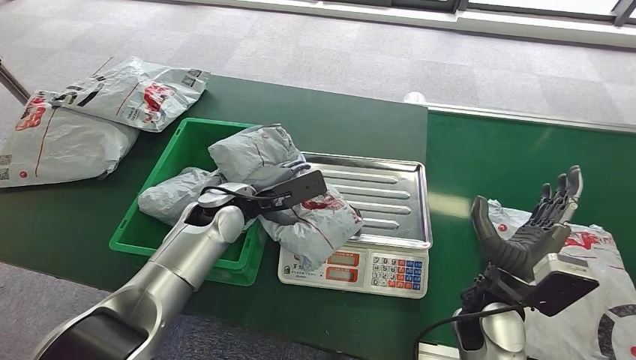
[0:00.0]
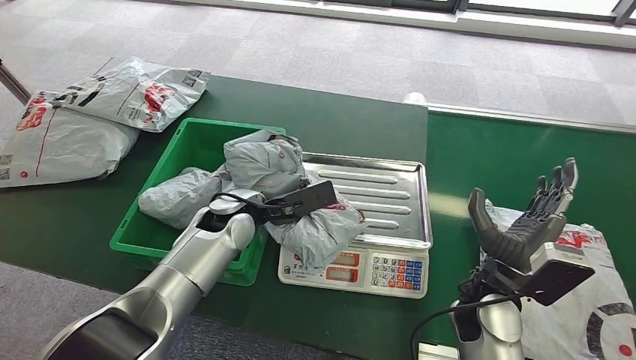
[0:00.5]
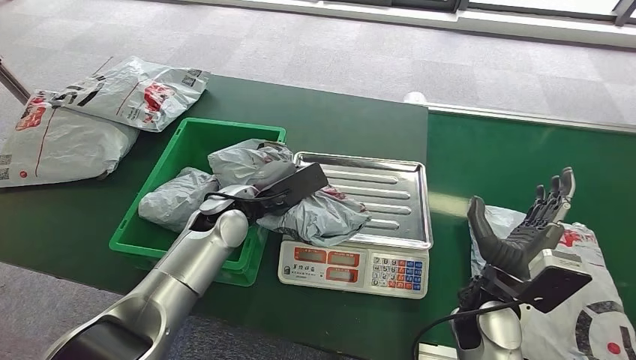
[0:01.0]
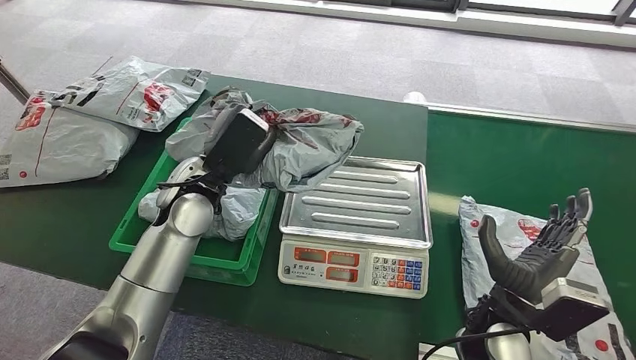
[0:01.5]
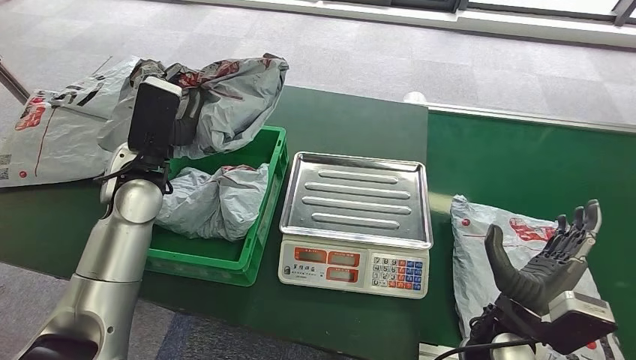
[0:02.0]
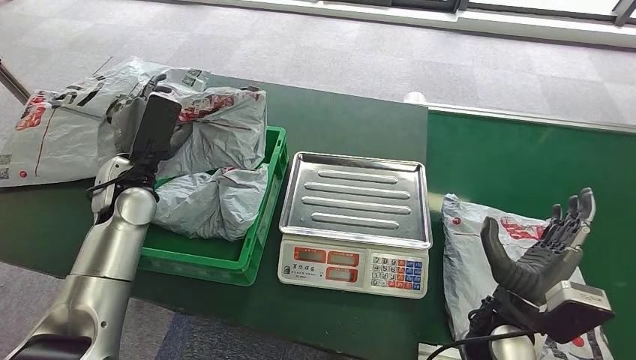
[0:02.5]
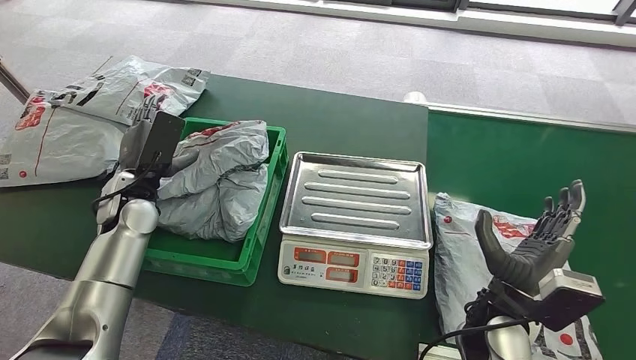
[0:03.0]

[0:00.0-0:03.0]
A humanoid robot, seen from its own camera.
Step, 0:02.0 to 0:03.0: Place the package into the parcel locker.

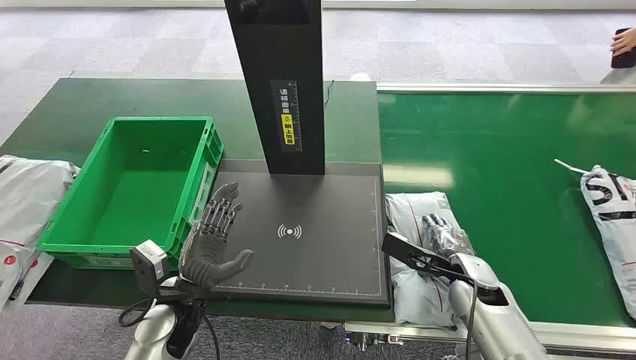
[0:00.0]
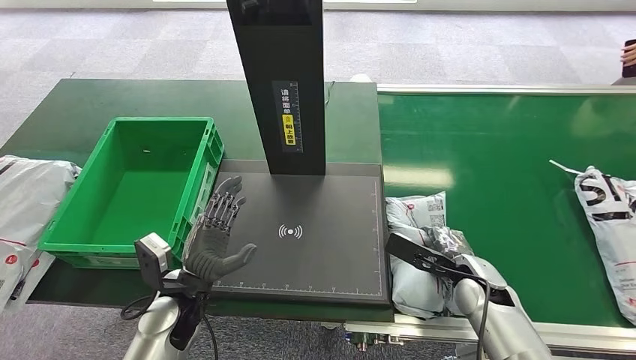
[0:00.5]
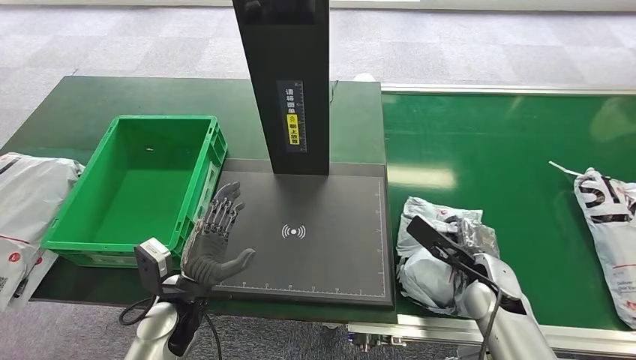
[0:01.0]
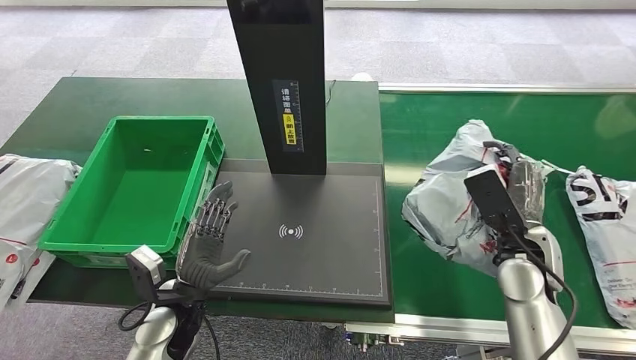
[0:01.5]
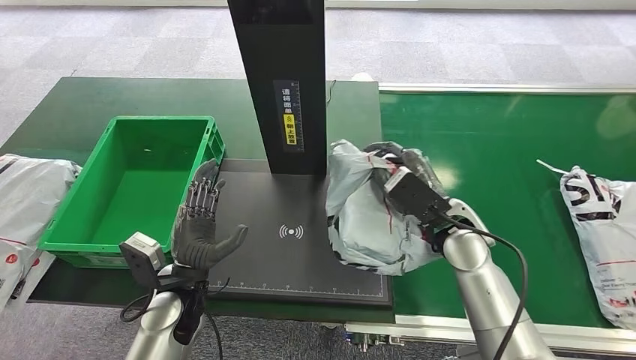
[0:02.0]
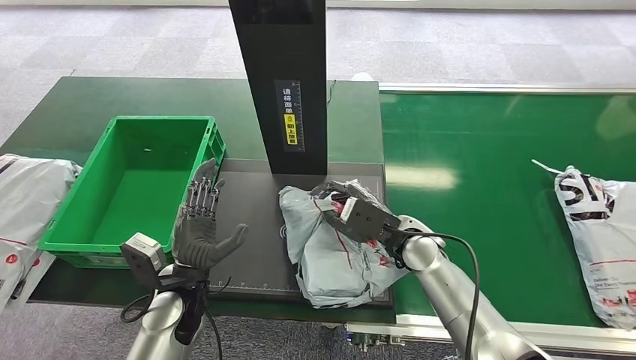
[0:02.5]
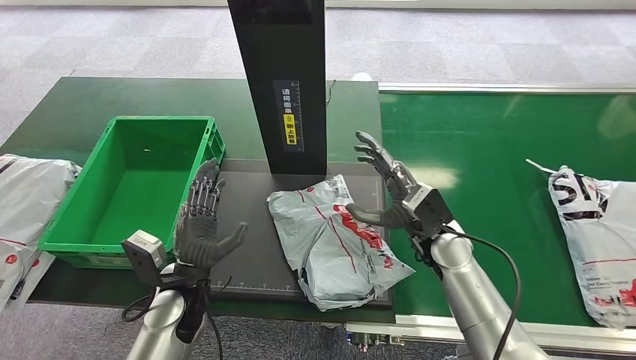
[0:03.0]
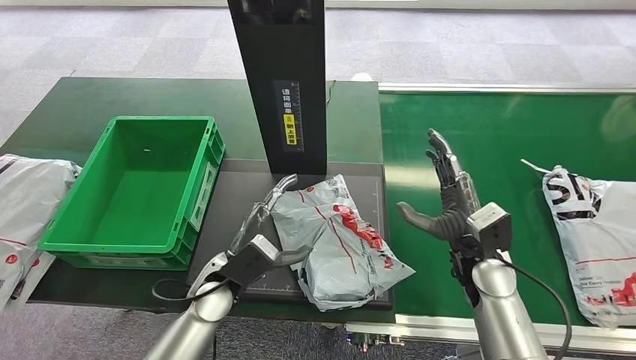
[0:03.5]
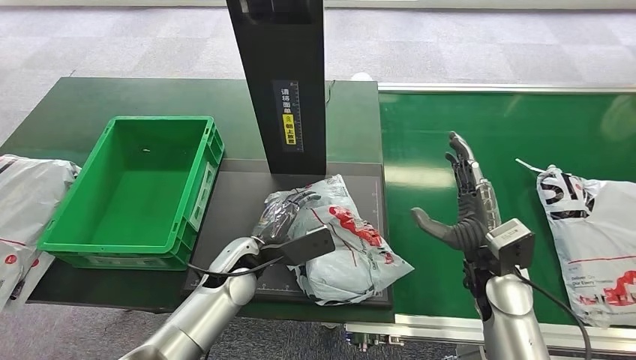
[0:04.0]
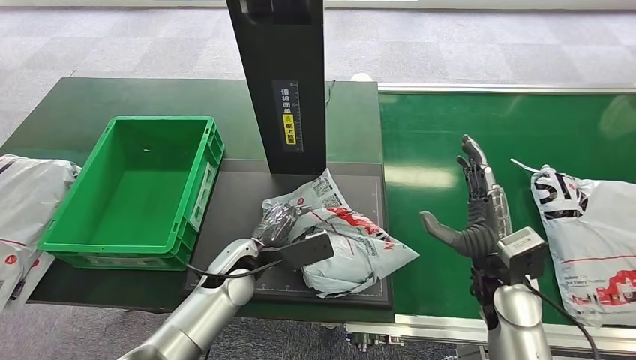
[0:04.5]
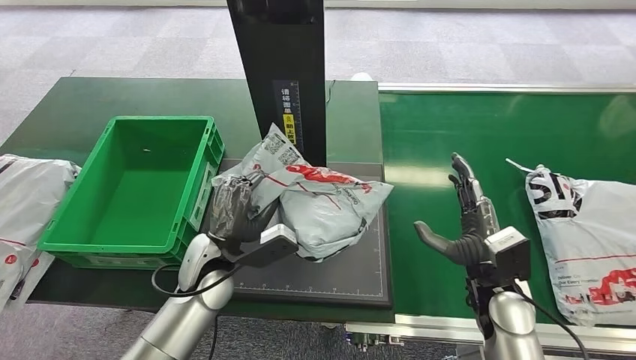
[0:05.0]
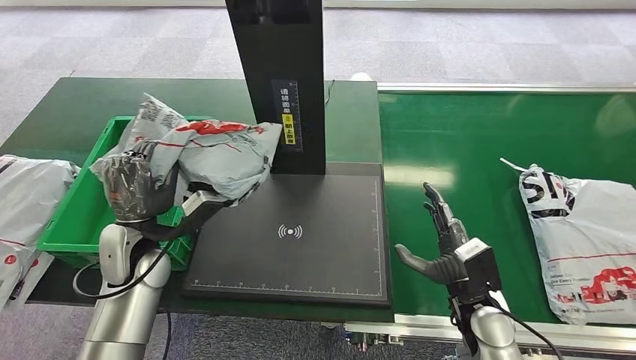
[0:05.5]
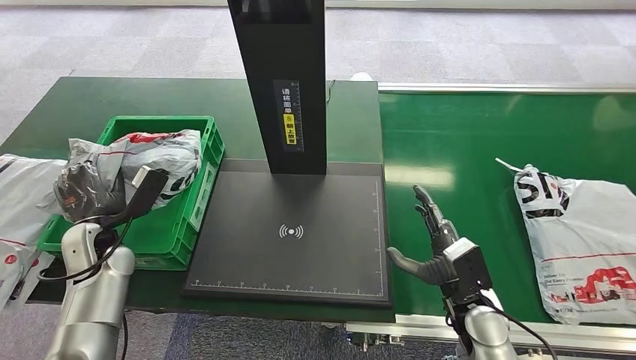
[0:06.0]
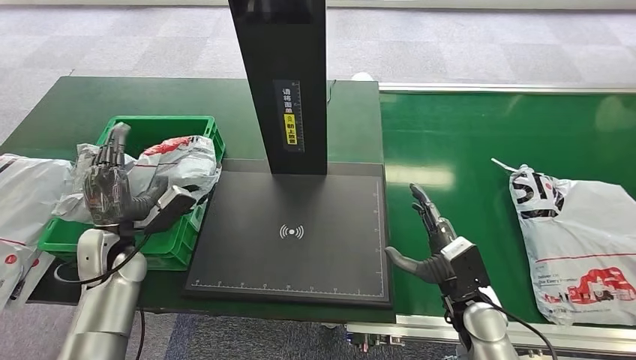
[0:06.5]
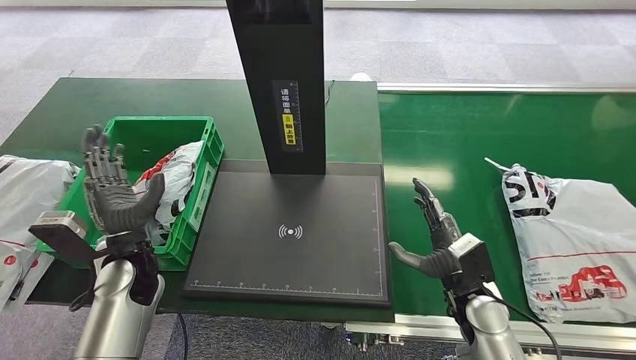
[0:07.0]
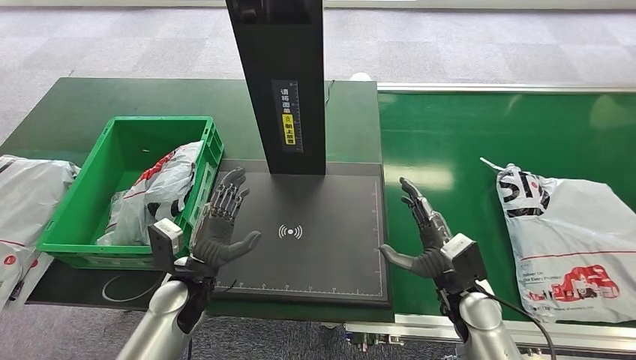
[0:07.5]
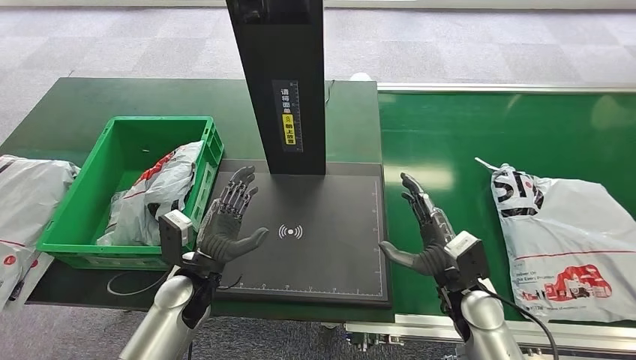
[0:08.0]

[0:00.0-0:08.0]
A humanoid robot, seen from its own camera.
Step, 0:00.0 to 0:01.5: Pick up the package from the conveyor belt.
Step, 0:02.0 to 0:03.0: Place the package onto the inbound machine.
Step, 0:03.5 to 0:05.0: Pick up the package from the inbound machine.
Step, 0:05.5 to 0:08.0: Place the package into the parcel locker.
0:06.0 to 0:08.0: The left hand shifts some 15 cm to the right.
